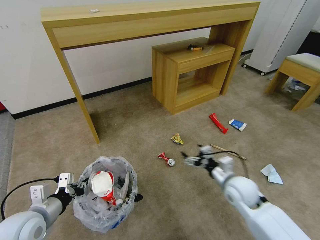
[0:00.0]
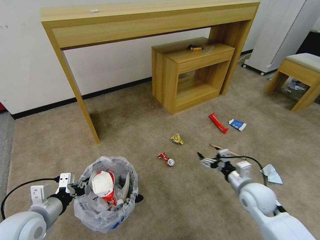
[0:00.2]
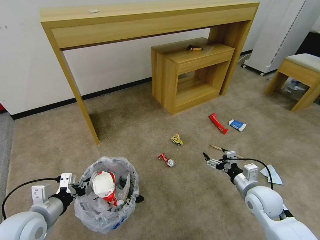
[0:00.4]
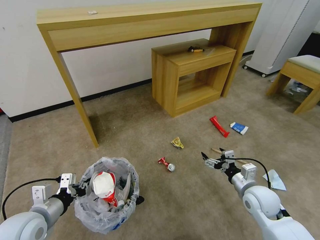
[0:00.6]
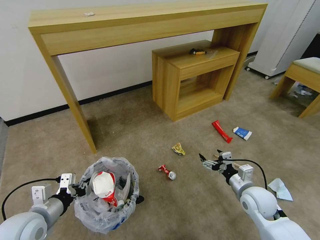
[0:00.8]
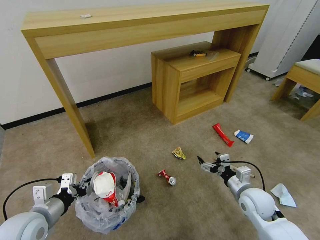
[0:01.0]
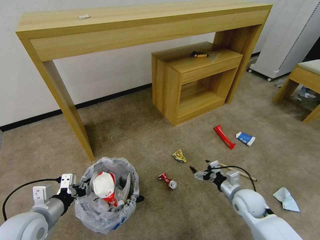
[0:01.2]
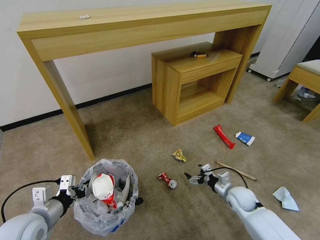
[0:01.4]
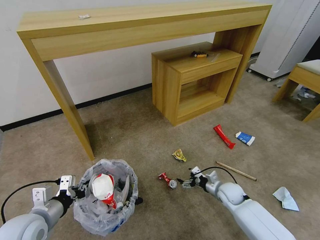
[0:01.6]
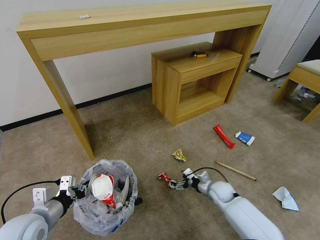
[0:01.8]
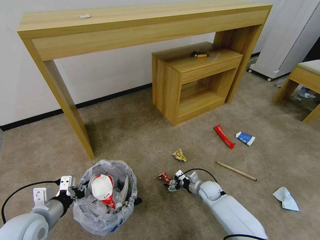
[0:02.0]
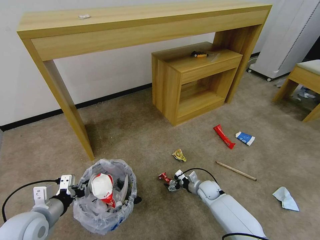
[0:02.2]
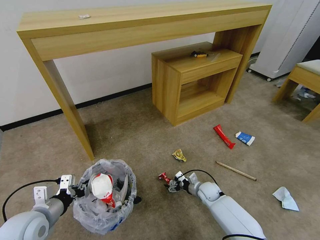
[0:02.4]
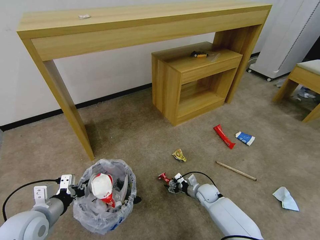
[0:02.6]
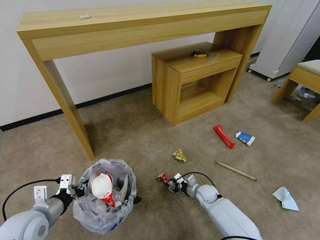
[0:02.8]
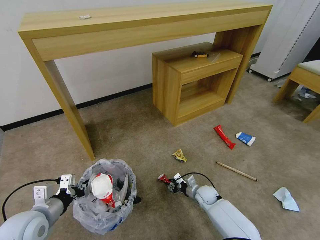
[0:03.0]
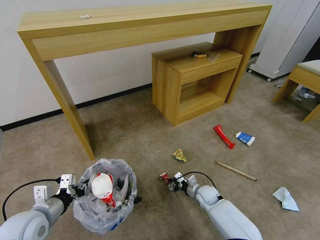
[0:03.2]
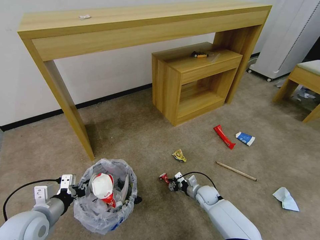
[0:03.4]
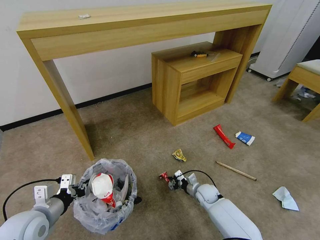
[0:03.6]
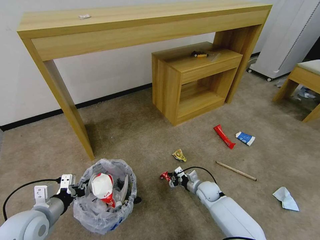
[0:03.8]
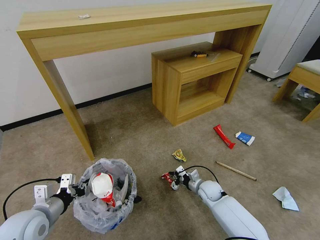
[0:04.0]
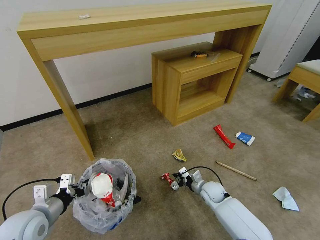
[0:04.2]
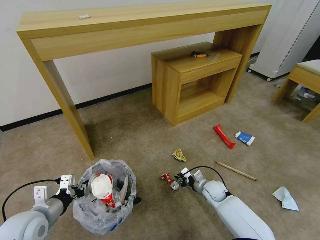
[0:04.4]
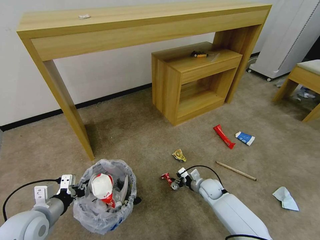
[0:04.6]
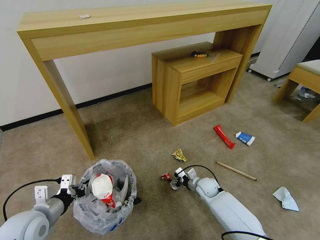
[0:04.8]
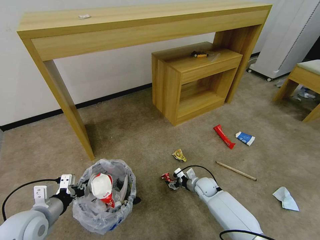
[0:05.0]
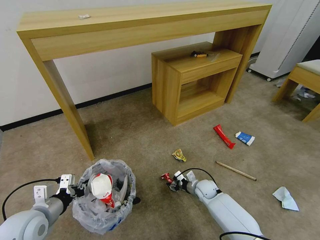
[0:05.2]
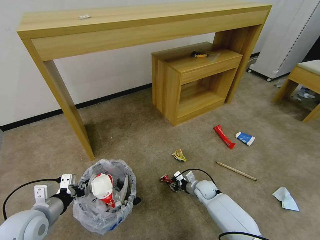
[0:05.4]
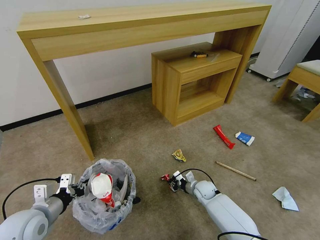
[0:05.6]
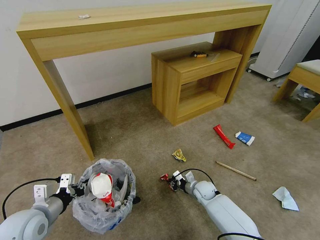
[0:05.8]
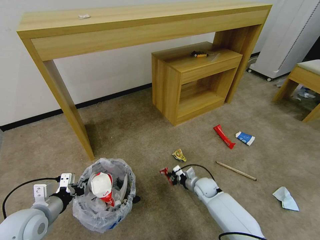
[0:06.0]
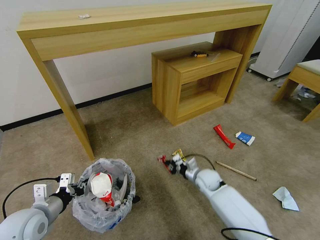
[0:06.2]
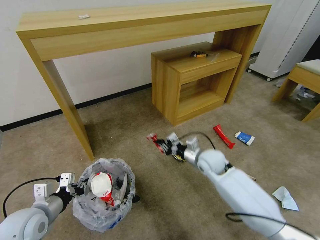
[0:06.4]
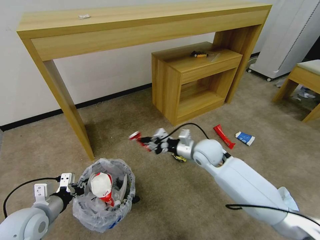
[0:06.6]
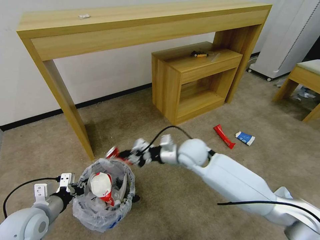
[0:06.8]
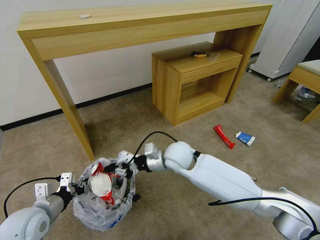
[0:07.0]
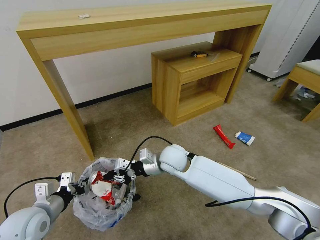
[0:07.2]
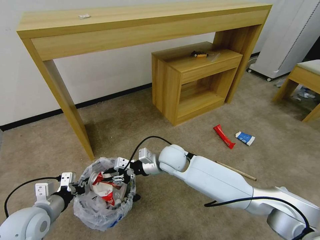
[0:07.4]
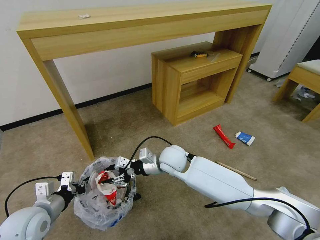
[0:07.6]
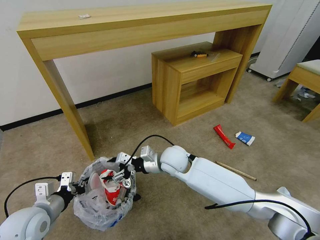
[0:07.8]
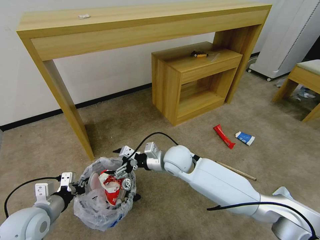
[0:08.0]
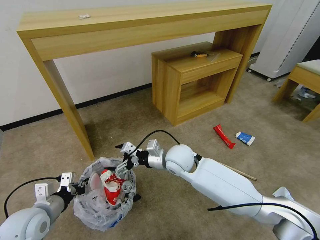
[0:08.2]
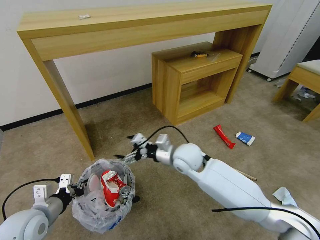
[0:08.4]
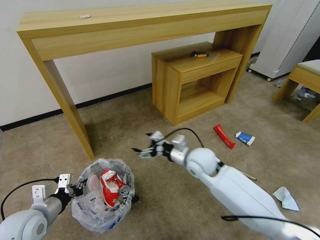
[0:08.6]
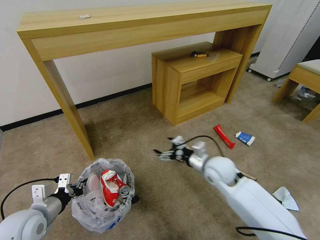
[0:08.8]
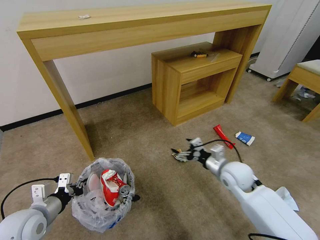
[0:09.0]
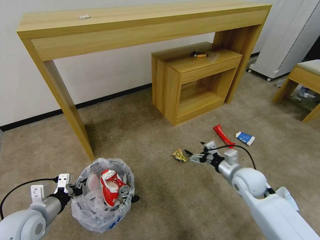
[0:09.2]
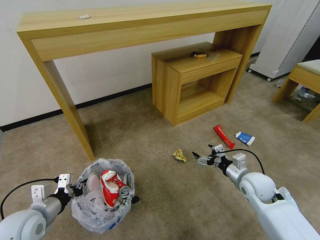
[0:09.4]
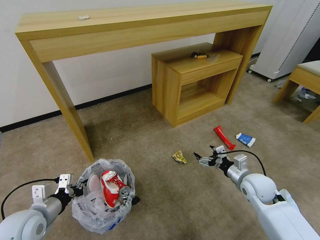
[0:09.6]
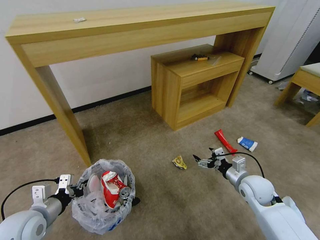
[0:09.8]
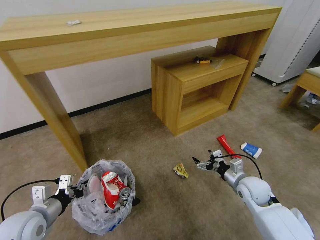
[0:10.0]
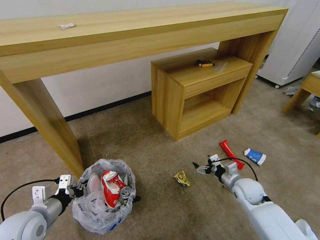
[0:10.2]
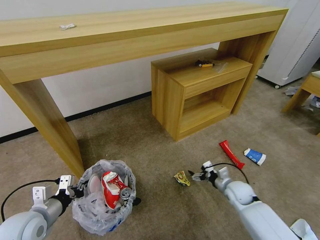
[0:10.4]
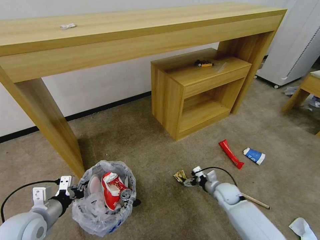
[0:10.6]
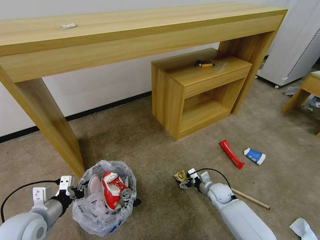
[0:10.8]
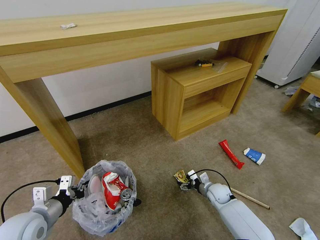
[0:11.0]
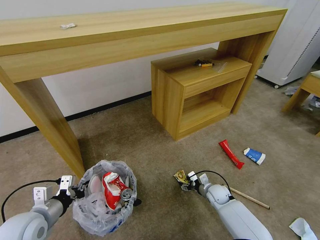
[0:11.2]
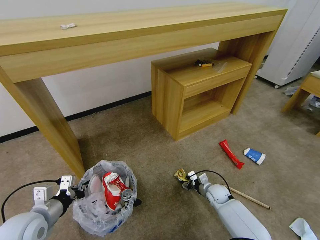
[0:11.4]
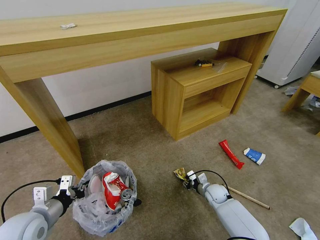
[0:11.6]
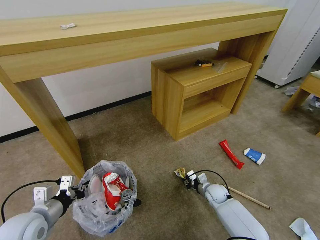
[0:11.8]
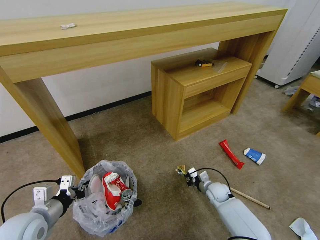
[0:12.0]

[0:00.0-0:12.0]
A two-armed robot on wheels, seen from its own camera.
Task of the whole recording: Pick up the trash bin and place the garbage on the floor into it.
0:00.0 to 0:01.6: The right gripper is displaced downward by approximately 15 cm.
0:01.6 to 0:03.0: The right gripper shifts roughly 10 cm to the left and downward, and closes up.
0:03.0 to 0:04.4: The right gripper moves roughly 5 cm.
0:04.4 to 0:06.0: The right gripper opens, then closes once more.
0:06.0 to 0:07.6: The right gripper travels upward and to the left by approximately 30 cm, and opens its fingers.
0:07.6 to 0:09.0: The right gripper moves to the right, roughly 20 cm, and opens.
0:09.0 to 0:10.4: The right gripper travels downward and to the right by approximately 15 cm.
0:10.4 to 0:12.0: The right gripper shifts roughly 10 cm downward and to the left, and closes up.

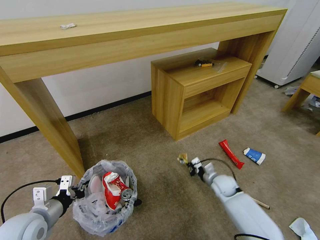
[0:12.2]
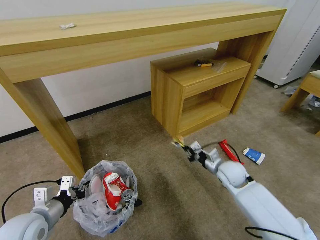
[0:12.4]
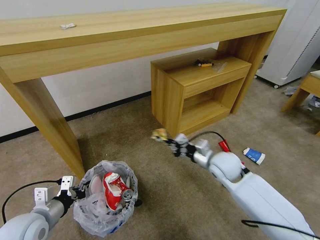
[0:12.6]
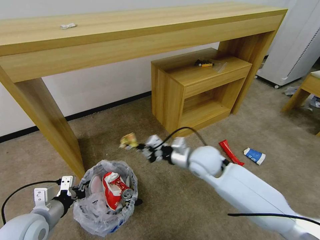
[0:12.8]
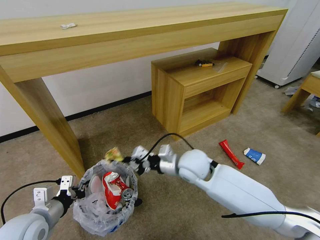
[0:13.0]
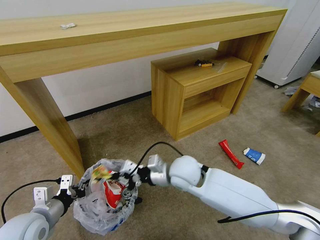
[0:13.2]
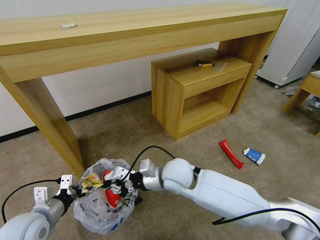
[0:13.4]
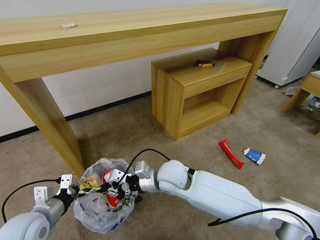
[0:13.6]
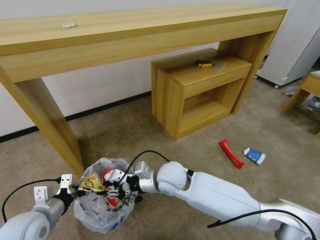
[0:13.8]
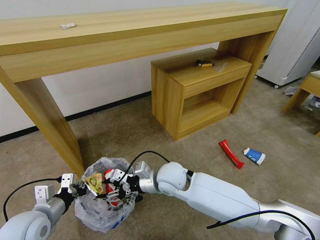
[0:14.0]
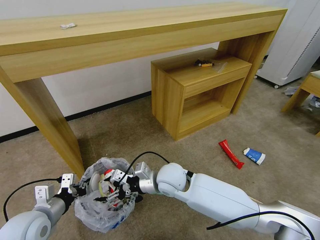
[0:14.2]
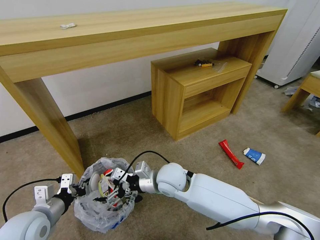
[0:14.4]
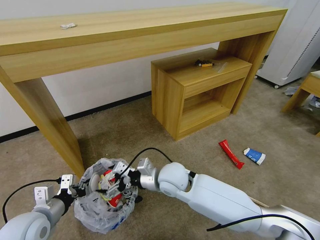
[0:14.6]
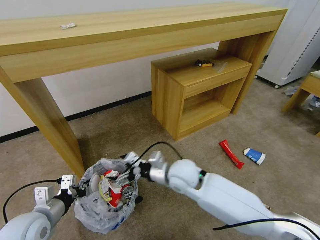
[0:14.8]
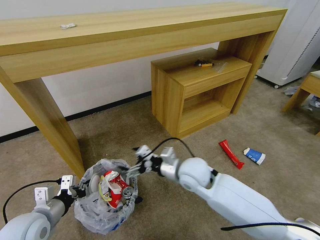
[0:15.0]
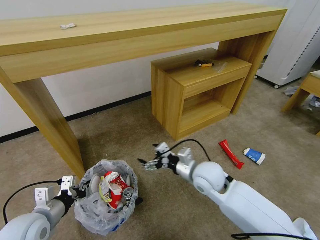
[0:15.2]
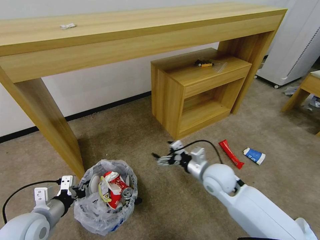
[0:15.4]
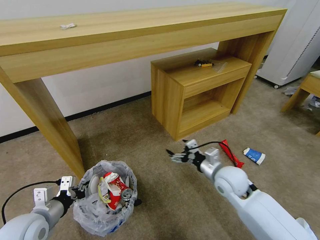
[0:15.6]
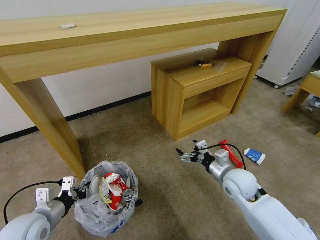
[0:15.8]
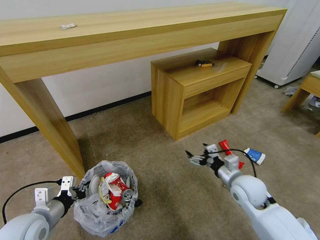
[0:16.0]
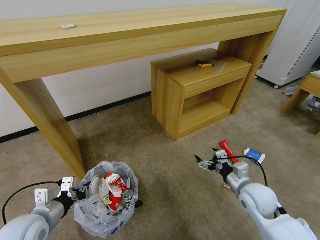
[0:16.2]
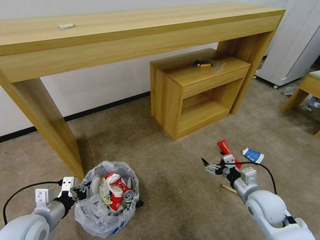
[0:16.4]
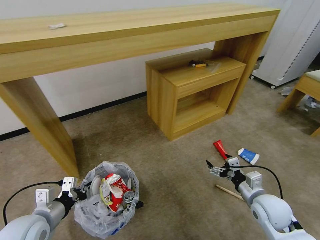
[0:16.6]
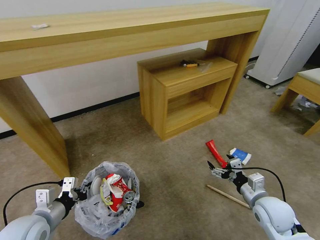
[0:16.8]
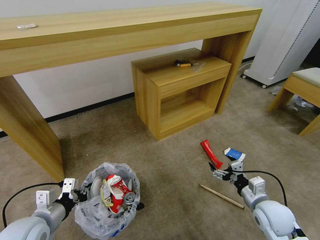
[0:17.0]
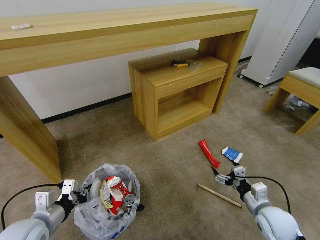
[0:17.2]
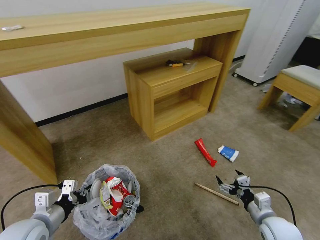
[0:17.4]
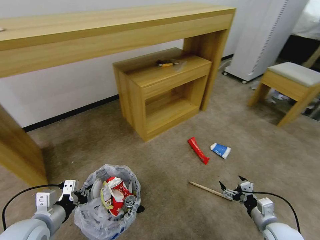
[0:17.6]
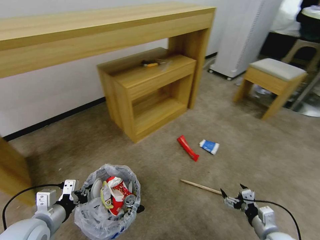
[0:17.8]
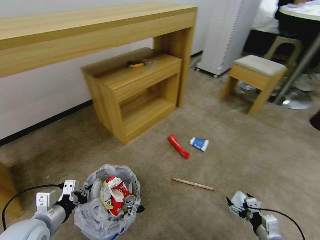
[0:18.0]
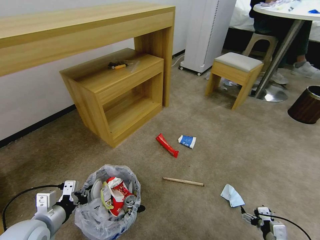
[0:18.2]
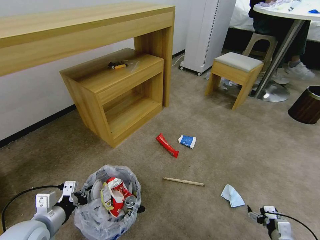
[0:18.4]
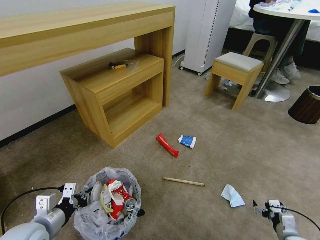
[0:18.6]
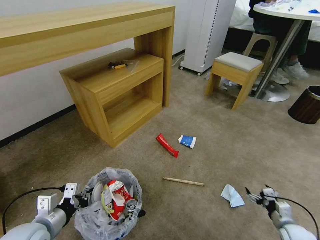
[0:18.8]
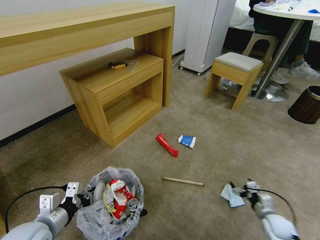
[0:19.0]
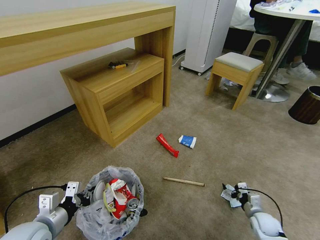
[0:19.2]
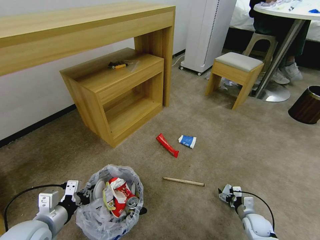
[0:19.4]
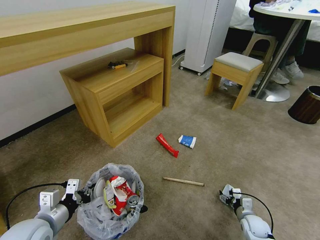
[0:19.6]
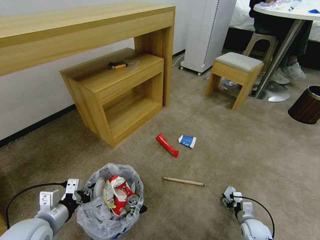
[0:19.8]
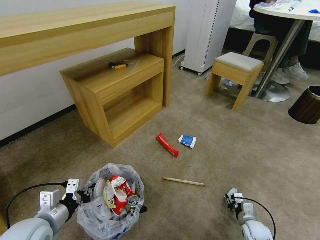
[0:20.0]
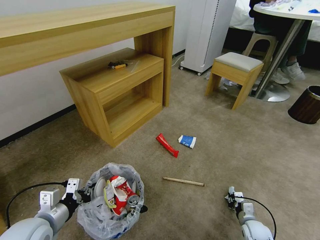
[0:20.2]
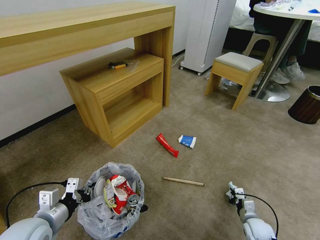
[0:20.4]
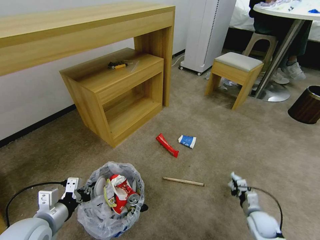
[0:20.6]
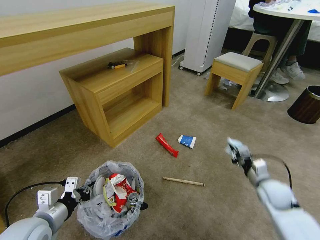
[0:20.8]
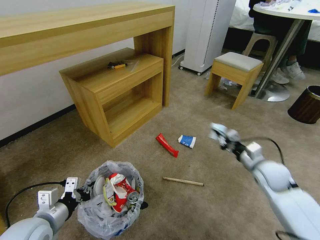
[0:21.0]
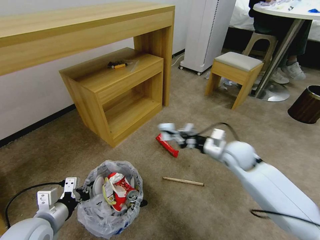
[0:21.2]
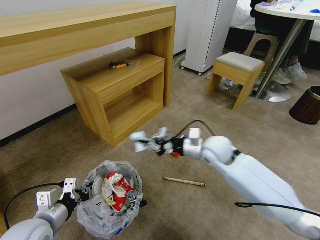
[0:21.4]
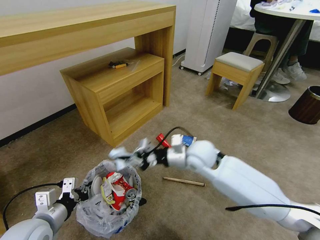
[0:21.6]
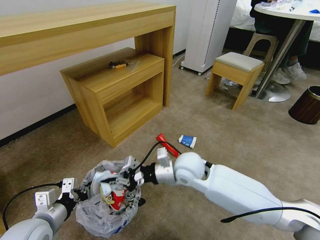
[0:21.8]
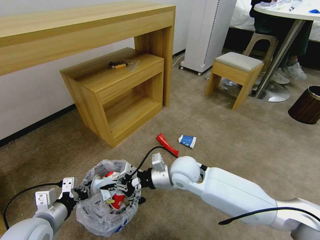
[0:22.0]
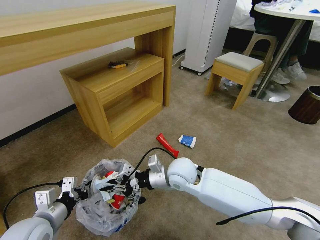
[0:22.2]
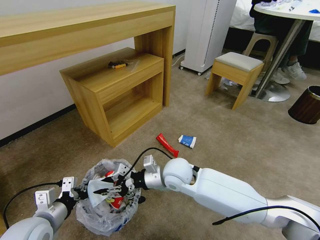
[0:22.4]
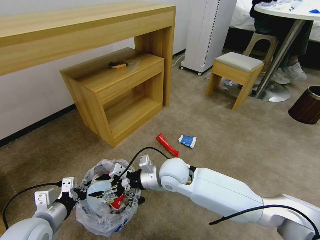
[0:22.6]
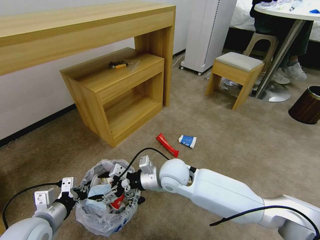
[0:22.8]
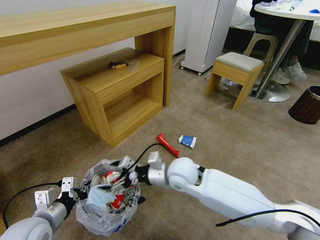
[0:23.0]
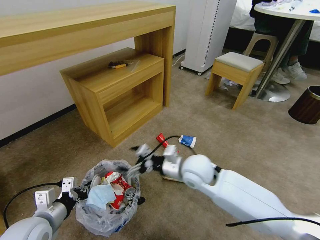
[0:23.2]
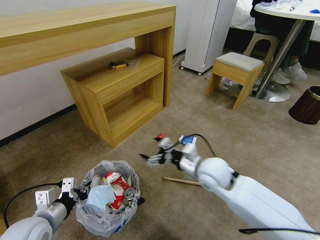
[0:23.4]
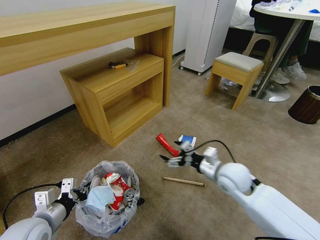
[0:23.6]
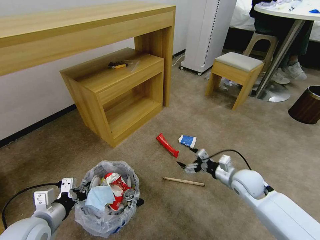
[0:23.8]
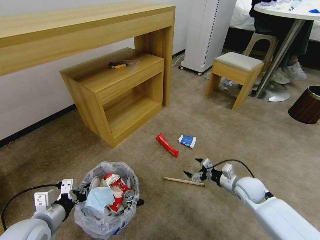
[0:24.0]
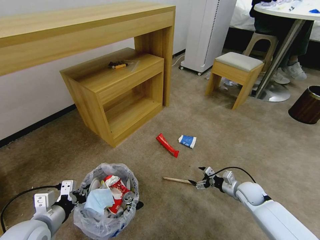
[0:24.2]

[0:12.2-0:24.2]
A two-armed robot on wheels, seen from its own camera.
Task of the whole recording: Pick up the trash bin and place the garbage on the floor into it.
0:12.2 to 0:13.8: The right gripper is displaced to the left and upward by about 30 cm.
0:13.8 to 0:15.2: The right gripper is displaced to the right by roughly 10 cm, and opens its fingers.
0:15.2 to 0:16.6: The right gripper shifts some 20 cm to the right and backward.
0:16.6 to 0:18.2: The right gripper goes some 20 cm downward, backward and to the right.
0:18.2 to 0:19.8: The right gripper moves forward and downward, about 15 cm, and closes.
0:19.8 to 0:21.2: The right gripper travels upward and forward by some 35 cm, and closes up.
0:21.2 to 0:22.6: The right gripper travels to the left by some 25 cm, and opens up.
0:22.6 to 0:24.2: The right gripper shifts roughly 40 cm to the right and downward, and opens up.
